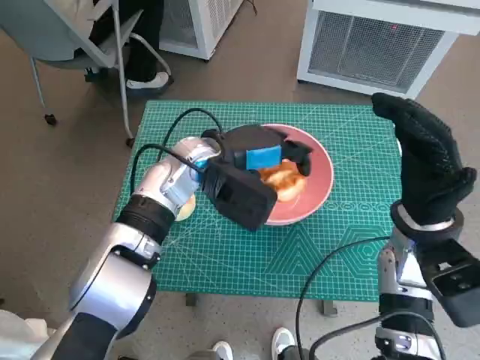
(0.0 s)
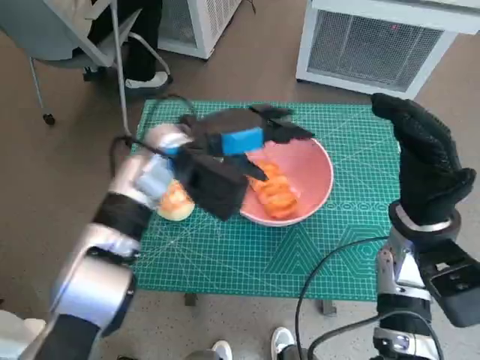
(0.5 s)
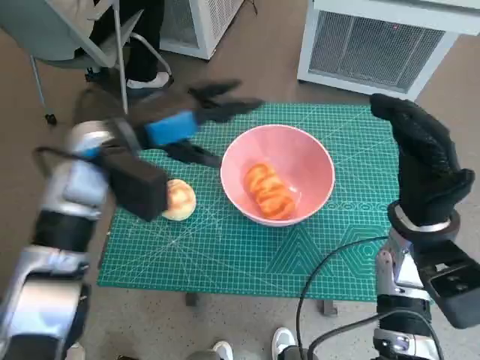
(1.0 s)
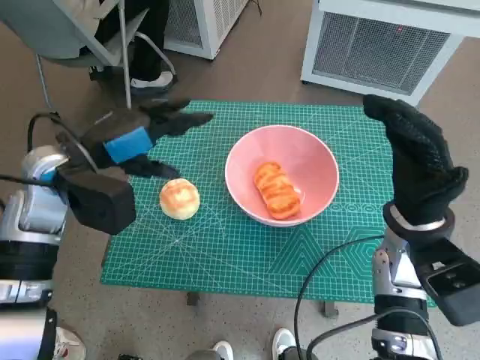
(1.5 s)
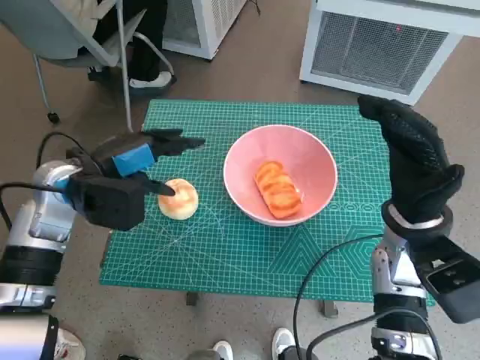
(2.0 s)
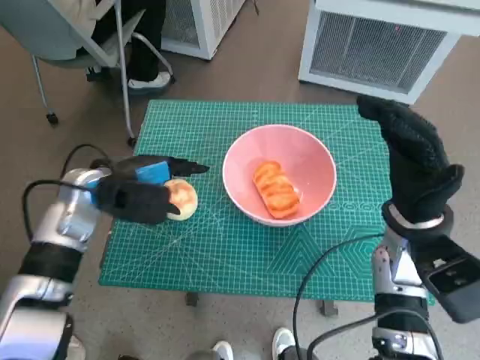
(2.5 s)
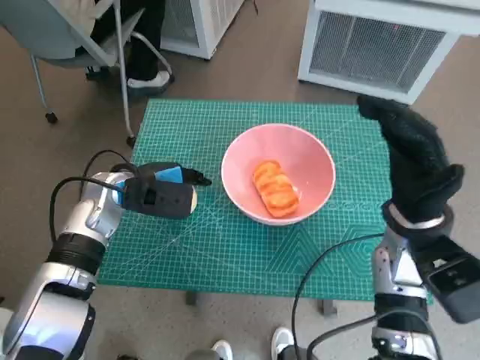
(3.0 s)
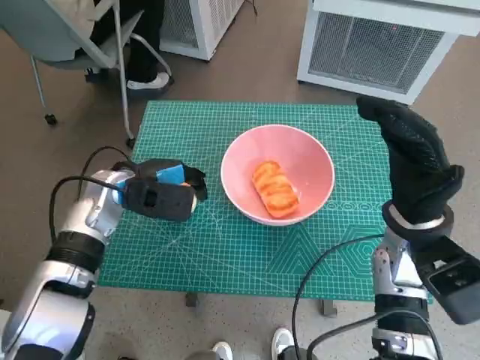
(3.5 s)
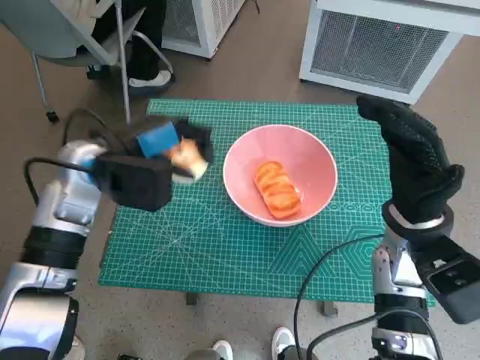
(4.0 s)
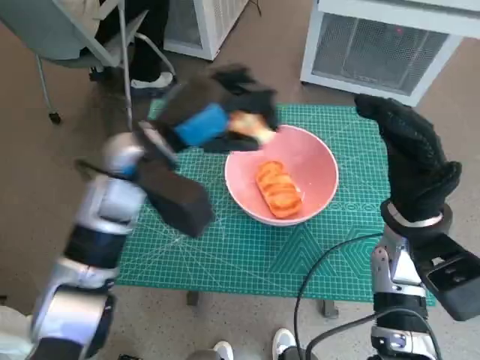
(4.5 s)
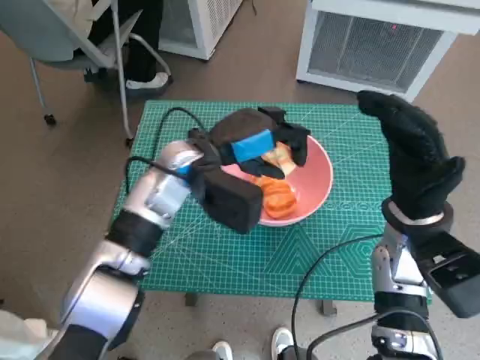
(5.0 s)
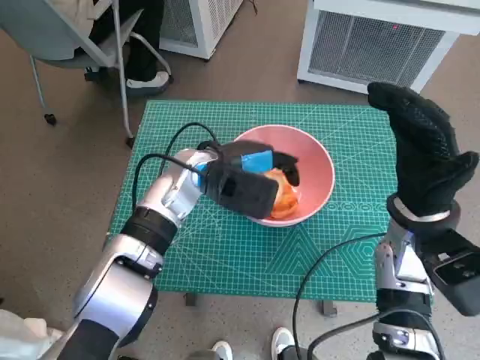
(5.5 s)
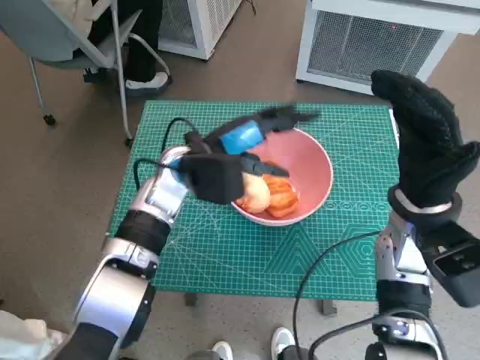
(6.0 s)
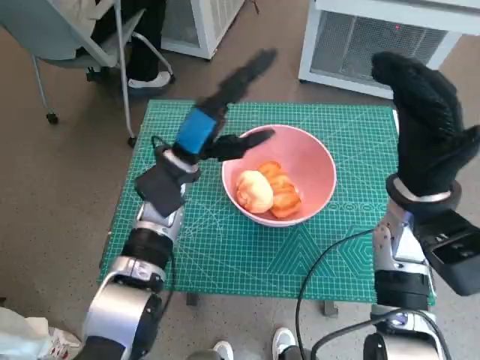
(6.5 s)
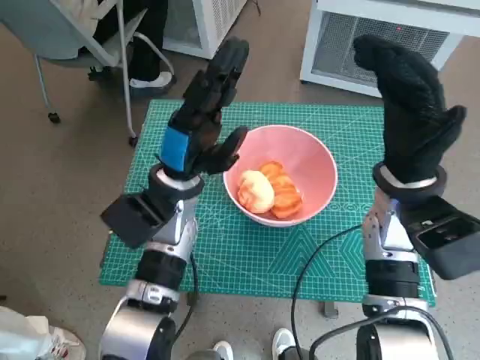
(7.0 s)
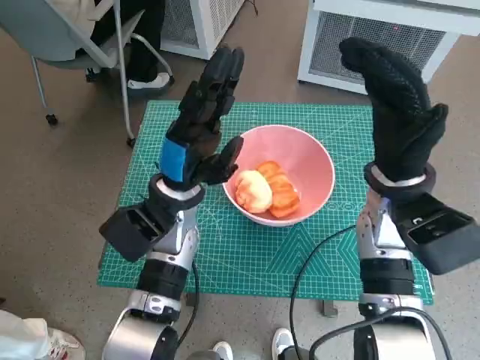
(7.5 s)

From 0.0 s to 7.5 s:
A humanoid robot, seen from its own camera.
Task of the whole recording: Push the bowl to the center of the table and put the bread into the bowl.
Step, from 1.0 s to 3.5 s: Grasp the round bread with left hand.
Step, from 4.0 s to 5.5 s: Place the round bread in pink bowl with left hand.
From 0.0 s to 2.0 s: The left hand is displaced to the left by about 15 cm.
From 4.0 s to 5.5 s: The left hand heads to the right, covering about 10 cm.
From 5.5 s to 7.5 s: The left hand changes place by some 5 cm.

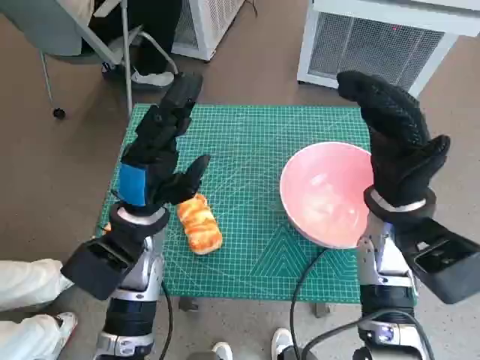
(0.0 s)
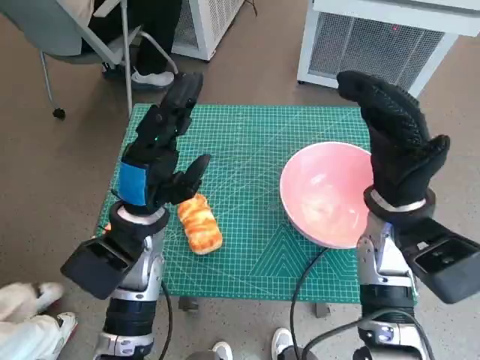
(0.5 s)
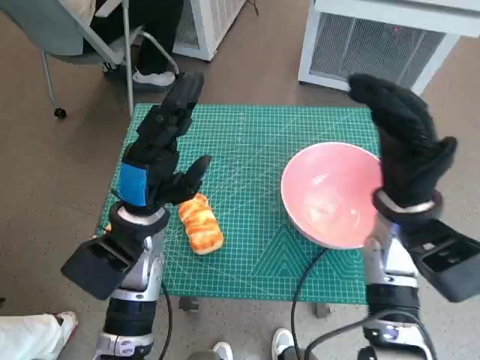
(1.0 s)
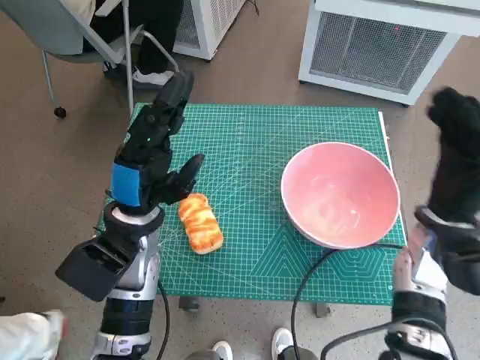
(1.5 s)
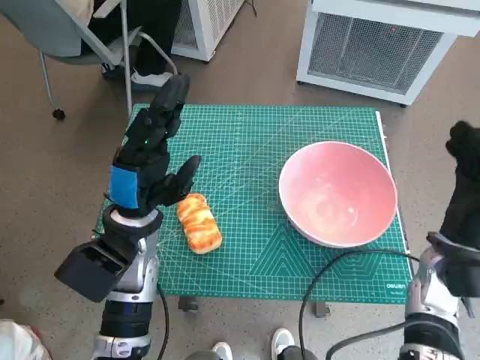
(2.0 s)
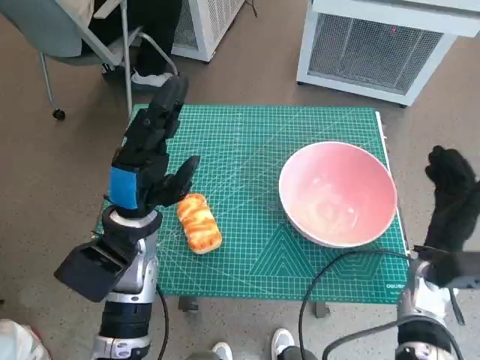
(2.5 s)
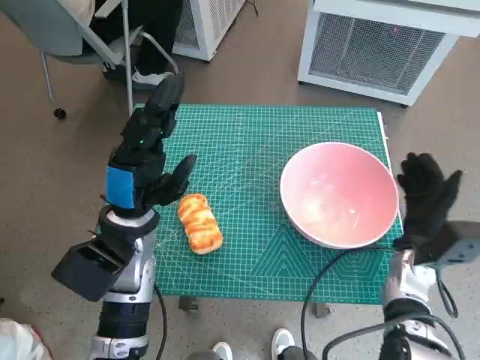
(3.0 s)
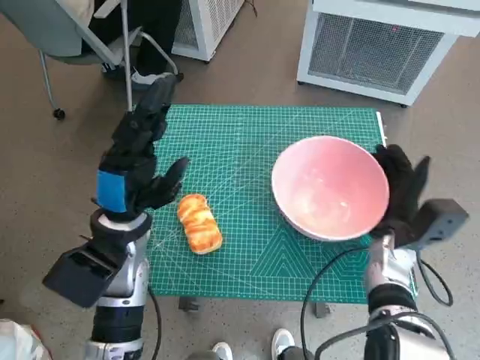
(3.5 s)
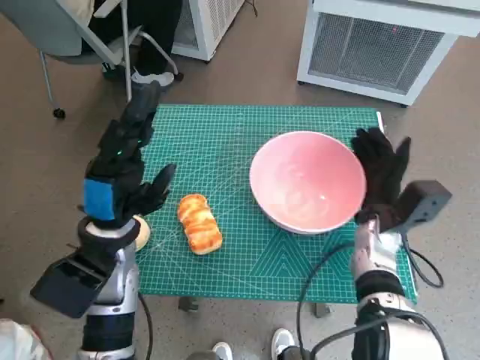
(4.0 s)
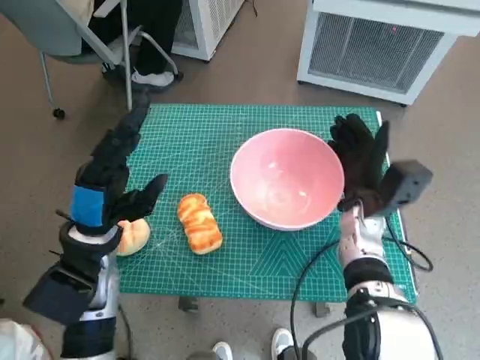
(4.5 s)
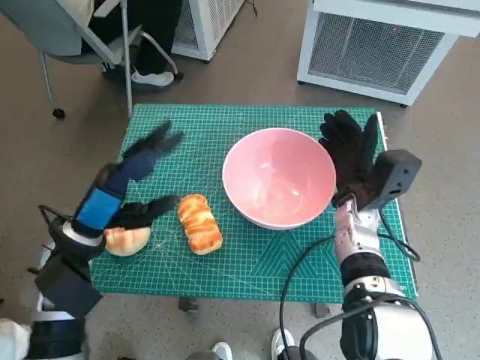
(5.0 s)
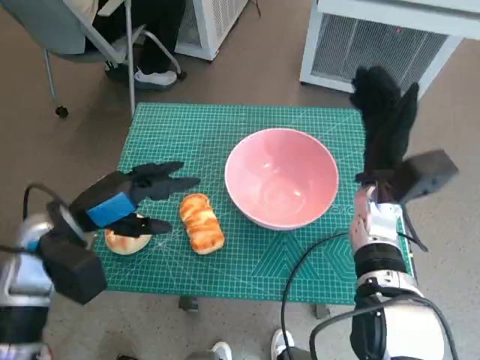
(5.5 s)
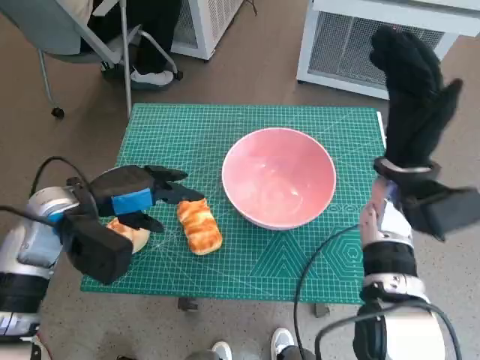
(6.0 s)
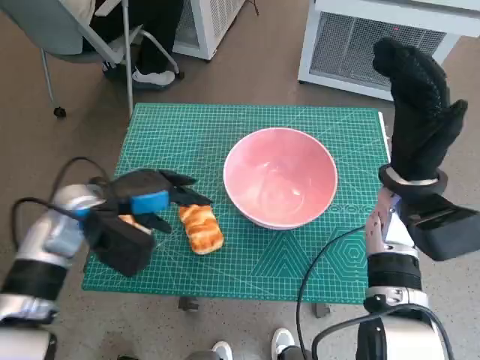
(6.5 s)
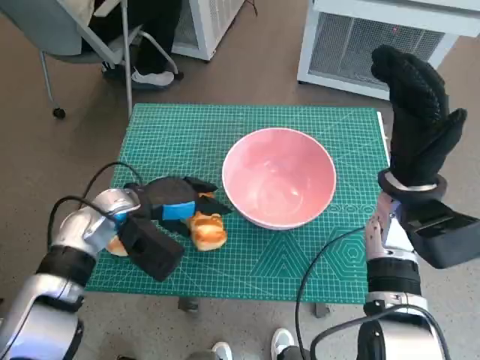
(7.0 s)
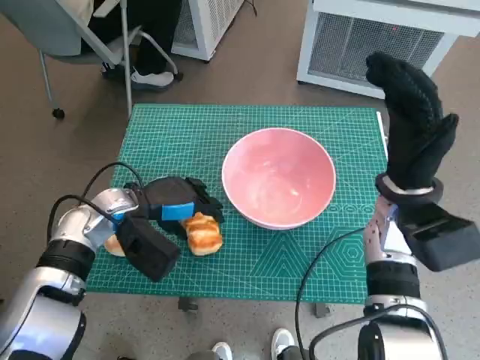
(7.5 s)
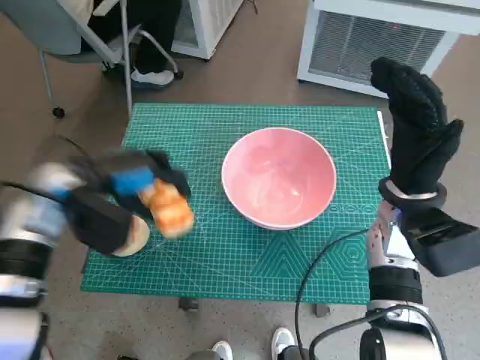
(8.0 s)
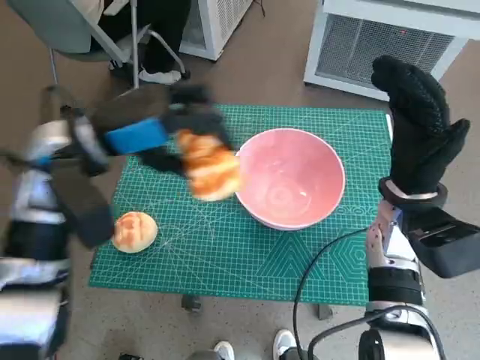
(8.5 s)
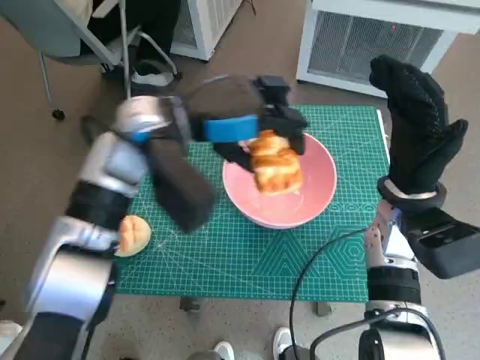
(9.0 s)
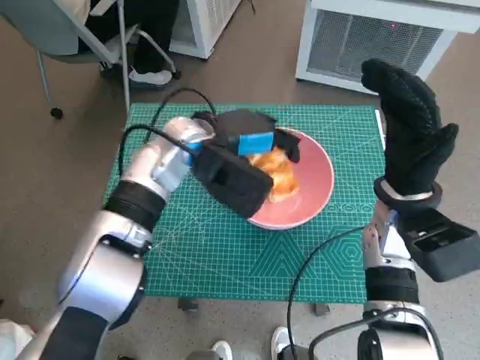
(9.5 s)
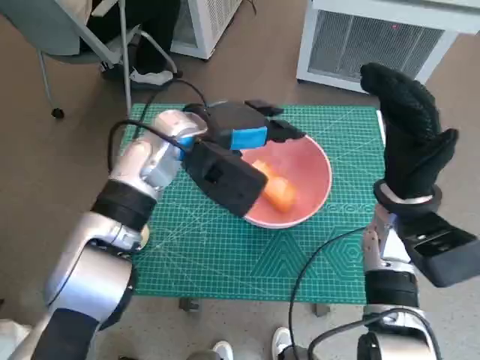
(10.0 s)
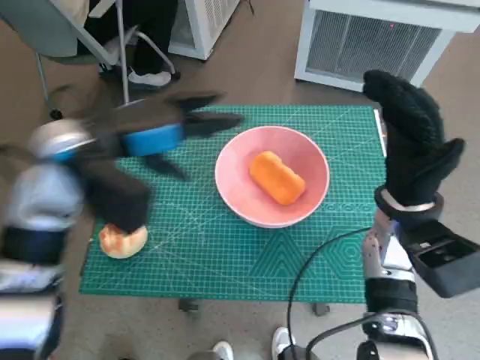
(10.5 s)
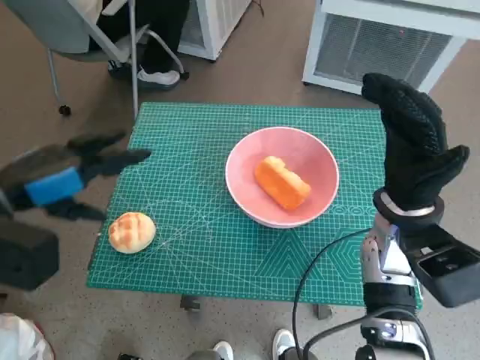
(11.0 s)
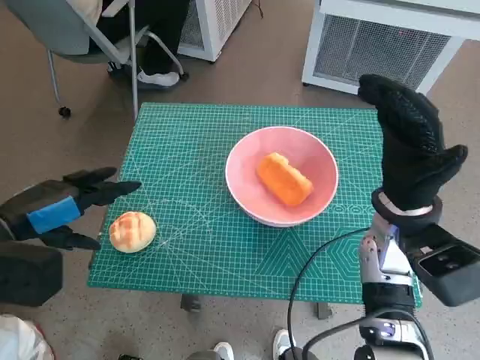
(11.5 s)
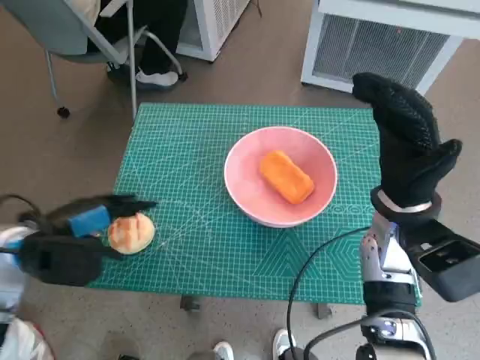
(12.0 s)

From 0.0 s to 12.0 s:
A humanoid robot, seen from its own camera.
Task of the whole recording: Push the bowl to the center of the table and put the bread into the bowl.
Step, from 0.0 s to 5.0 s: Move the pink bowl to the center of table with right hand.
Step, from 5.5 s to 7.0 s: Grasp the long bread with left hand.
Step, from 7.5 s to 10.0 s: Place the long bread in pink bowl with left hand.
From 2.0 s to 4.0 s: The right hand shifts roughly 10 cm to the left and forward.
From 4.0 s to 6.0 s: The left hand goes approximately 5 cm to the left. The right hand is displaced upward by about 10 cm.
From 8.0 s to 10.0 s: The left hand goes roughly 15 cm to the right.
From 10.0 s to 12.0 s: The left hand goes roughly 25 cm to the left and backward.

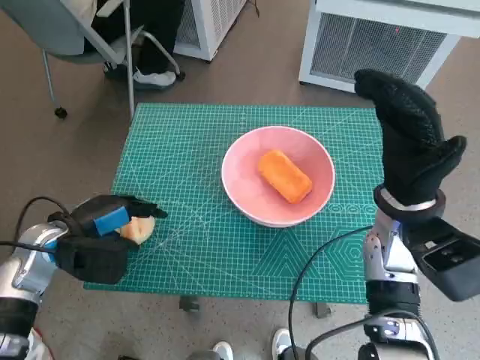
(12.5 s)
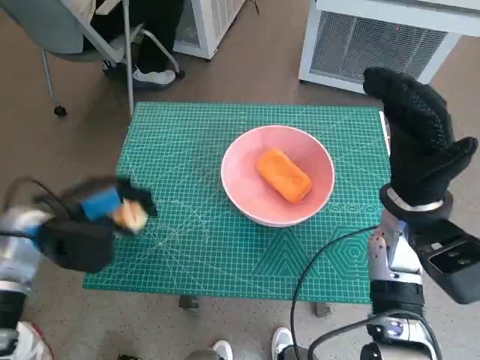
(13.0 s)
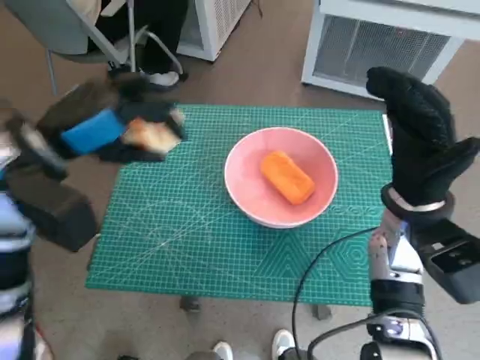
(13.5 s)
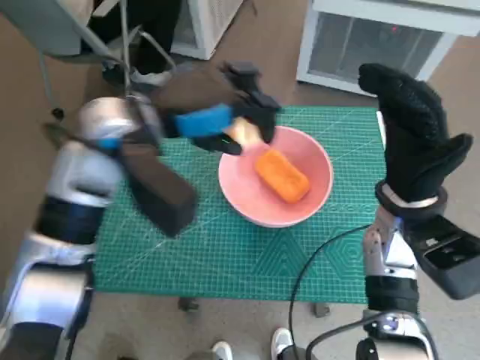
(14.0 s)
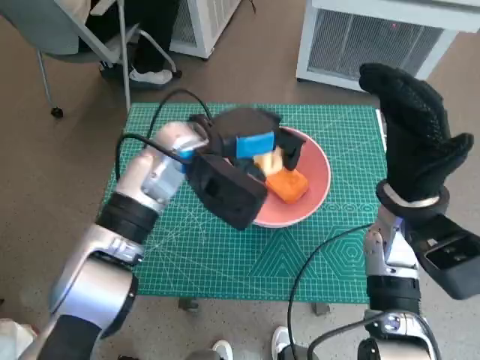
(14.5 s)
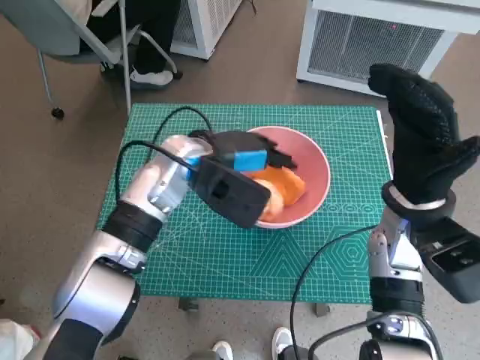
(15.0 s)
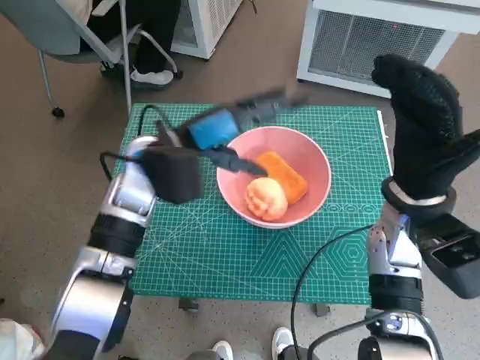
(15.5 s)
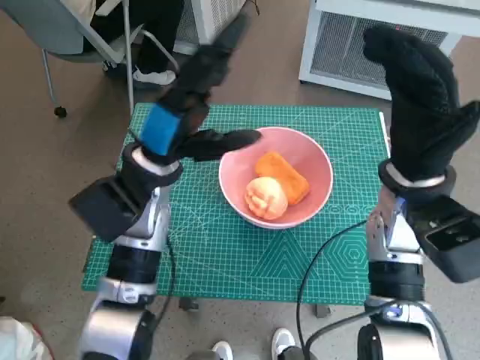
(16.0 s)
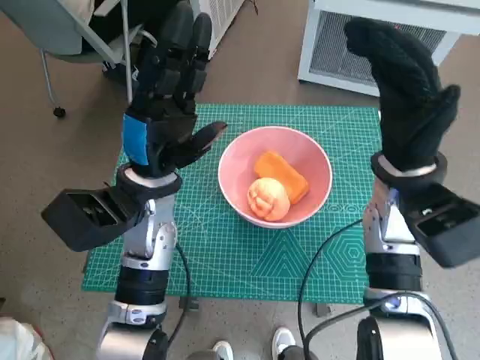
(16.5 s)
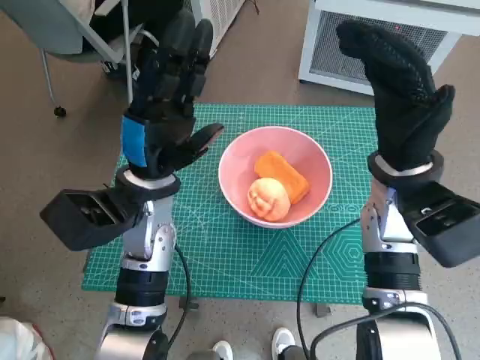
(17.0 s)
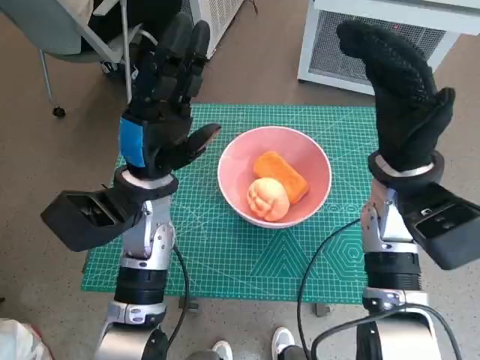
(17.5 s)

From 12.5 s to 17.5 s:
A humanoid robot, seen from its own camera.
Task of the whole recording: Push the bowl to the center of the table and put the bread into the bowl.
Step, from 13.0 s to 15.0 s: Place the round bread in pink bowl with left hand.
From 12.5 s to 15.0 s: The left hand travels to the right, forward and upward by approximately 25 cm.
From 15.0 s to 17.5 s: The left hand shifts about 5 cm to the left and backward.

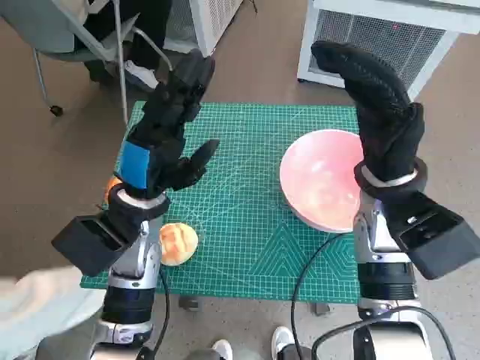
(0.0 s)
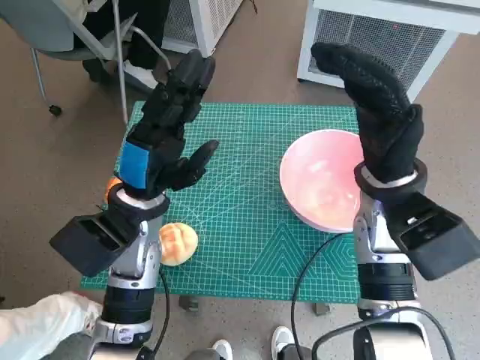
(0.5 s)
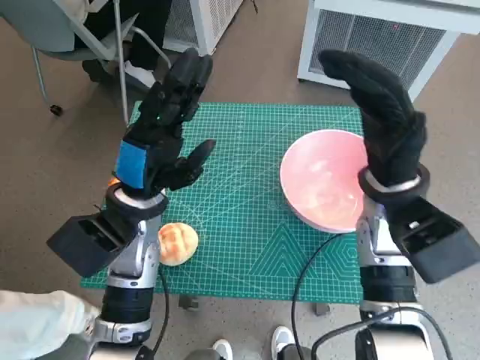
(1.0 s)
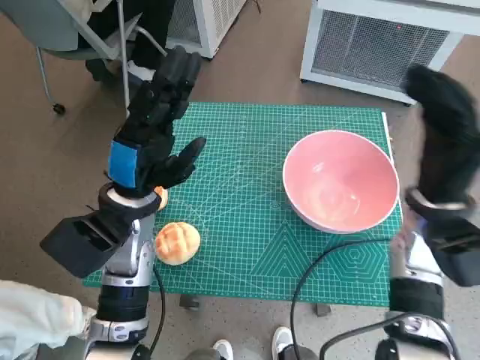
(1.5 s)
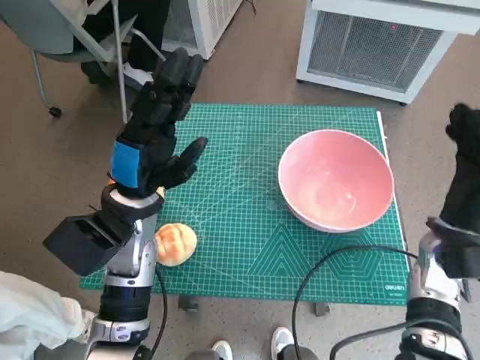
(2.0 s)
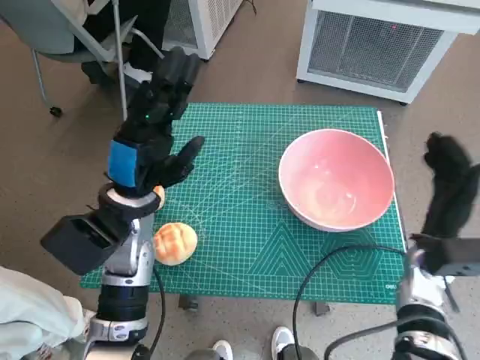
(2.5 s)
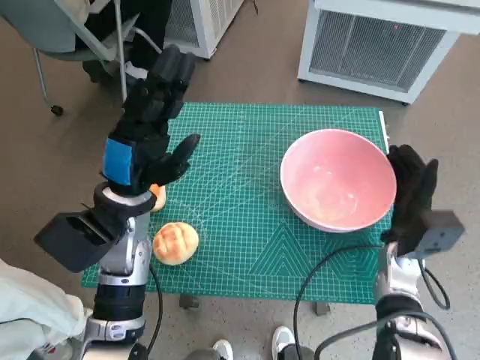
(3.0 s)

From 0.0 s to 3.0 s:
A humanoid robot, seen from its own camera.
Task of the whole recording: Push the bowl to the center of the table and put the bread into the bowl.
From 1.5 s to 3.0 s: The right hand goes approximately 10 cm downward.
